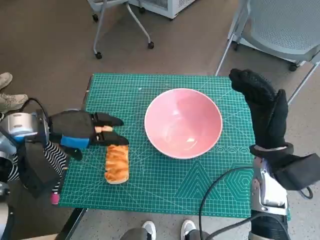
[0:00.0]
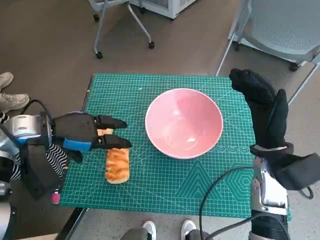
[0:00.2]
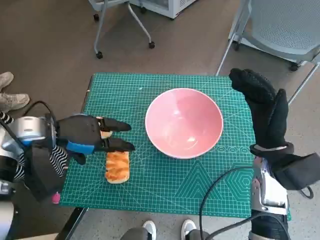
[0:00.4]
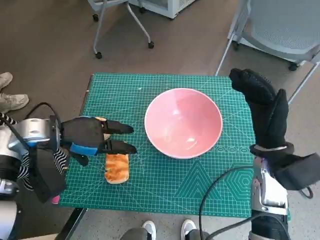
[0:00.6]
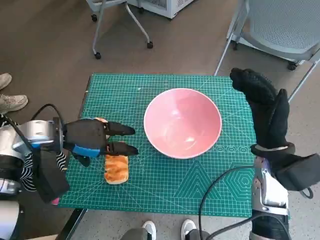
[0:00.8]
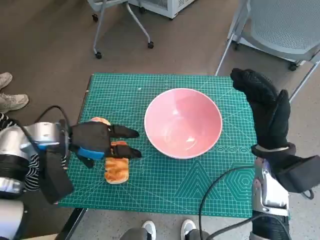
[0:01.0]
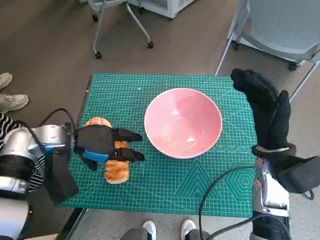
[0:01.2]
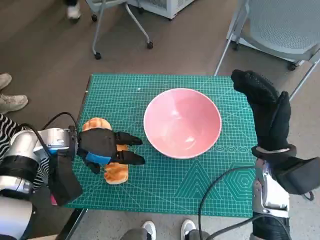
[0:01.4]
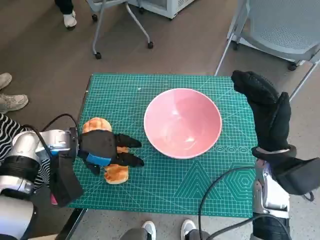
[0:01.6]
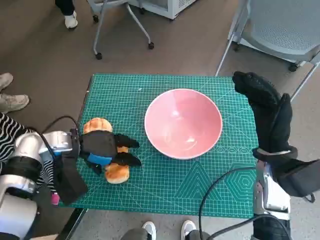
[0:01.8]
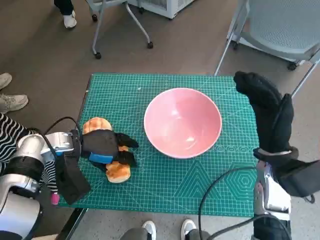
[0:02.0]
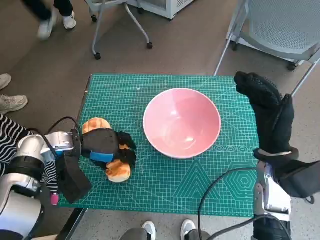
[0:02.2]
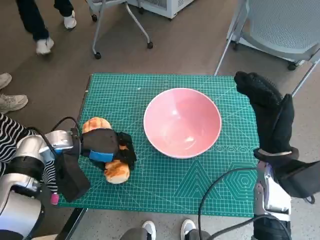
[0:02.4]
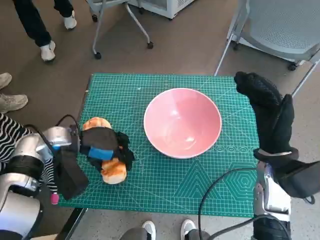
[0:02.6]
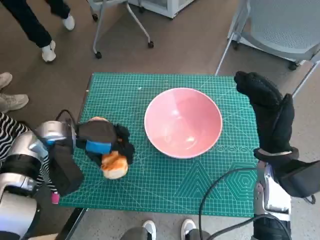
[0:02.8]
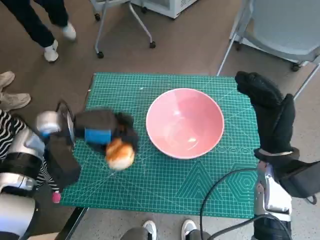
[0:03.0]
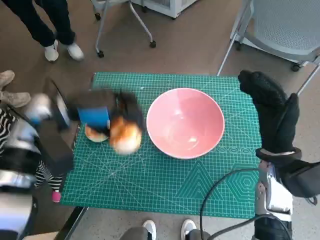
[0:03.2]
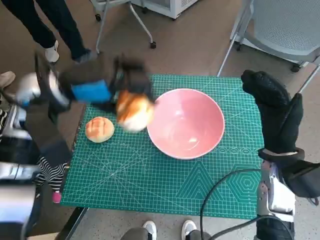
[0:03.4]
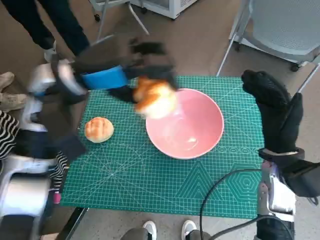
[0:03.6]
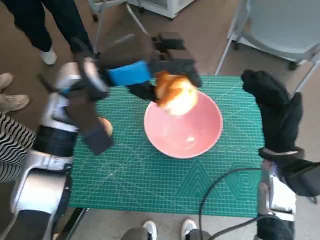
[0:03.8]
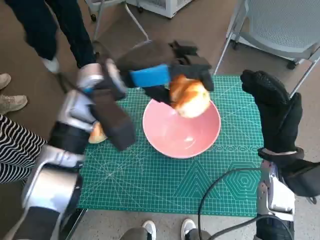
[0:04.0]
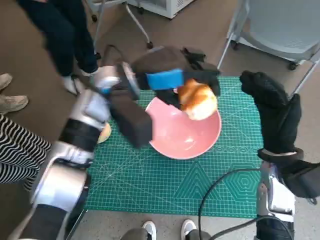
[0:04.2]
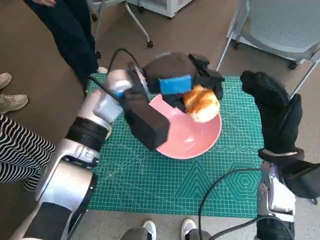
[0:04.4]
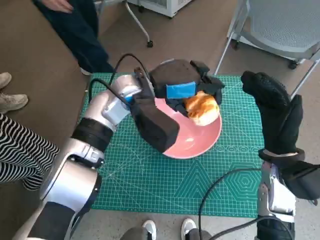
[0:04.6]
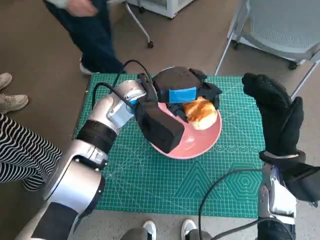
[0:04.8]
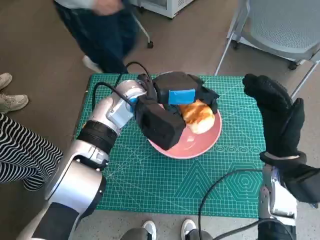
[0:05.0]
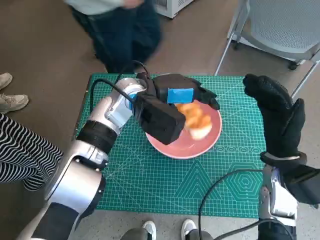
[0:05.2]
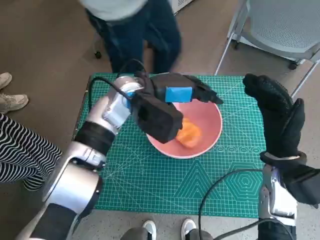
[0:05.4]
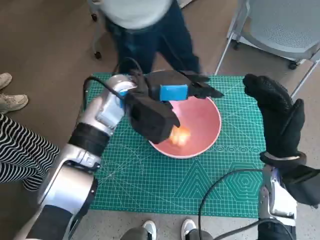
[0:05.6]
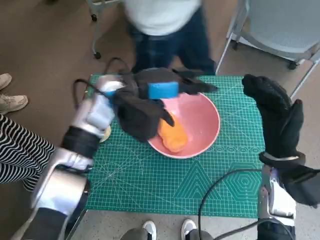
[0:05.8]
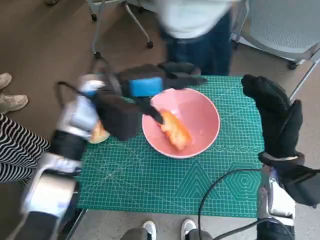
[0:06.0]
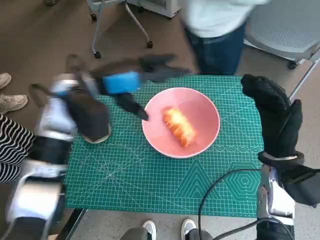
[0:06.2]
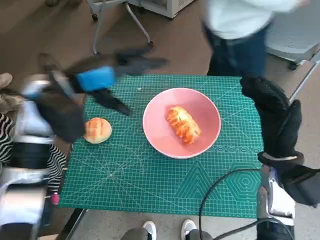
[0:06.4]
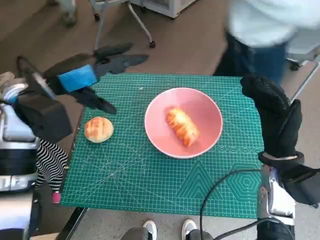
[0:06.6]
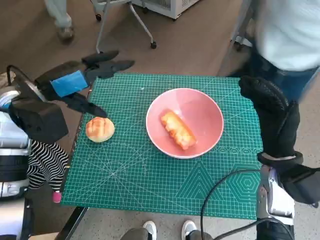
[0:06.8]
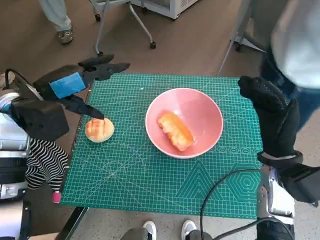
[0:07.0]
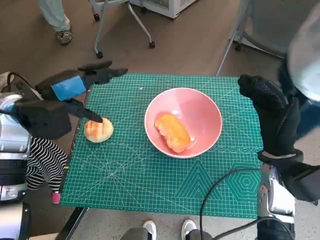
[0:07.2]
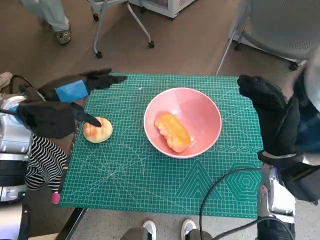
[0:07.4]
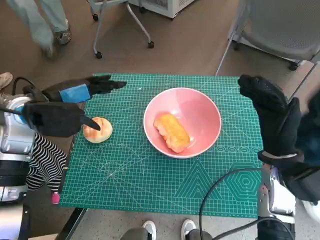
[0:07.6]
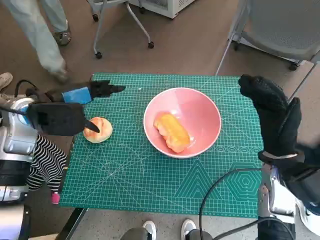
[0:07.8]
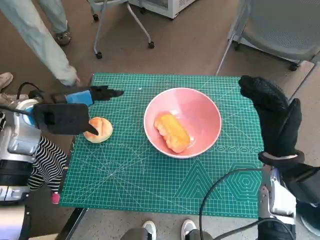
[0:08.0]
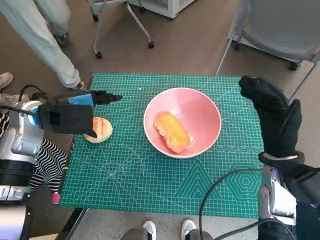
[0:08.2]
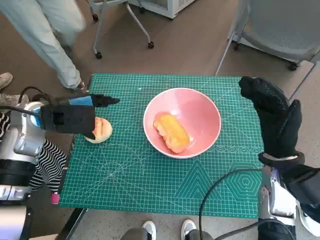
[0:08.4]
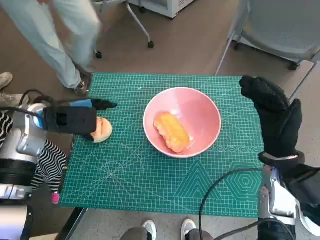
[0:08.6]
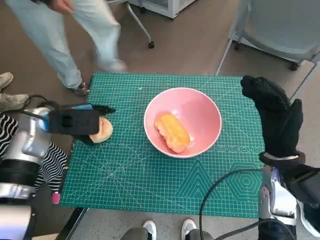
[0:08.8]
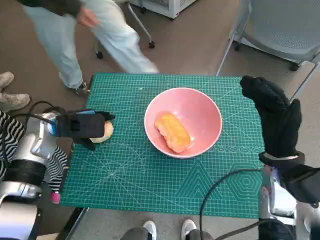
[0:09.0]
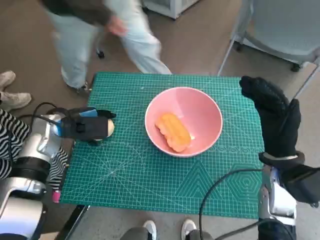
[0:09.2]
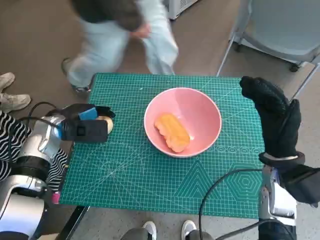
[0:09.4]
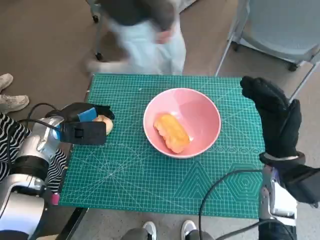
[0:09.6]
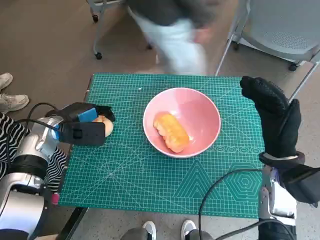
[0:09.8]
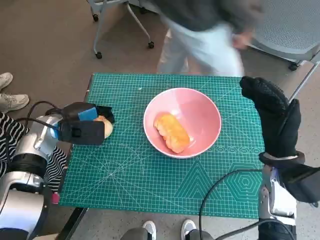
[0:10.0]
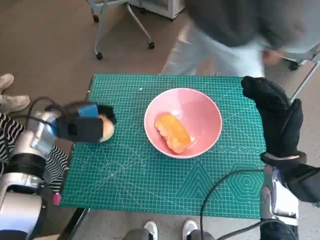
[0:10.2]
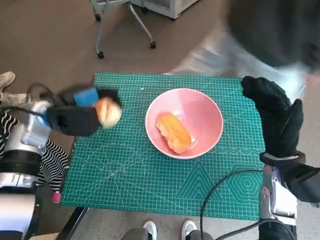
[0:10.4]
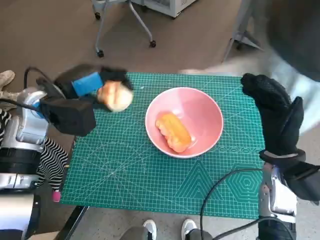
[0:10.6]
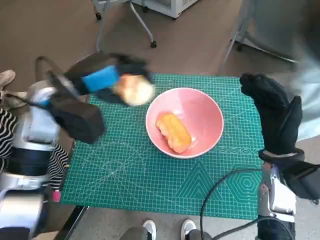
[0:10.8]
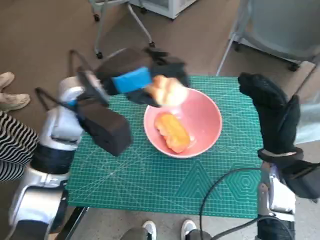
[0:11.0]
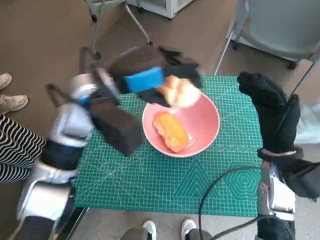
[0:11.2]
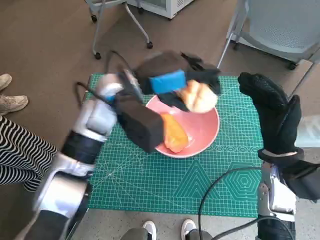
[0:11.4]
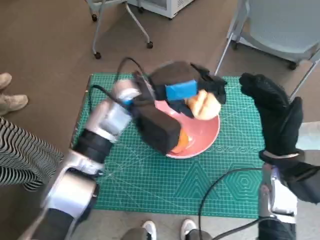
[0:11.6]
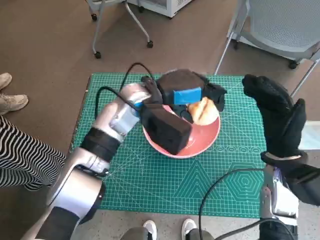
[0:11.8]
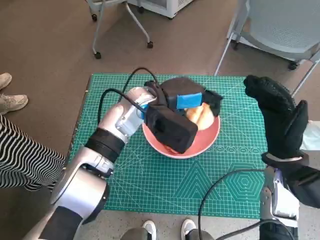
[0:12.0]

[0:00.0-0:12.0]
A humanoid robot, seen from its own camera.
Task of the whole recording: Push the bowl into the center of the table and put the bread into the bowl.
Step, 0:00.0 to 0:02.4: Grasp the long bread with left hand.
Step, 0:02.6 to 0:05.4: Place the long bread in pink bowl with left hand.
Step, 0:05.6 to 0:09.6: Grasp the round bread with left hand.
0:00.0 to 0:01.6: The left hand is displaced downward by about 5 cm.
0:03.0 to 0:04.4: The left hand is displaced to the right and upward by some 15 cm.
0:06.0 to 0:07.6: The left hand shifts roughly 10 cm to the left.
0:07.6 to 0:09.0: The left hand travels downward by some 5 cm.
0:10.4 to 0:12.0: The left hand shifts roughly 20 cm to the right.

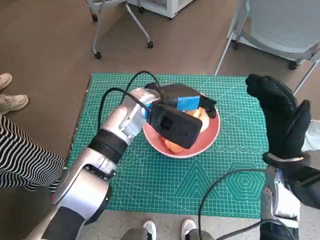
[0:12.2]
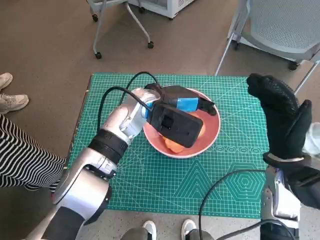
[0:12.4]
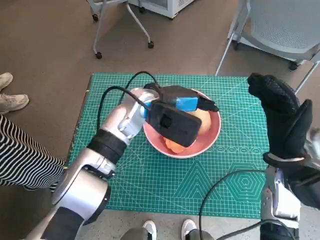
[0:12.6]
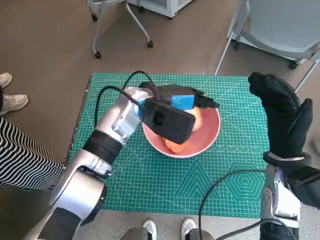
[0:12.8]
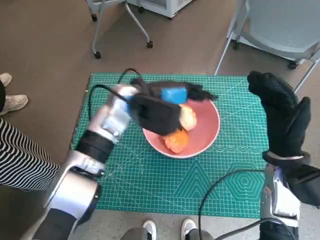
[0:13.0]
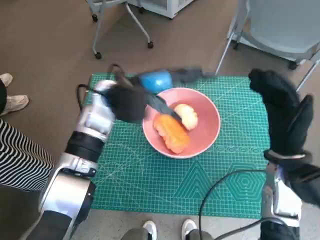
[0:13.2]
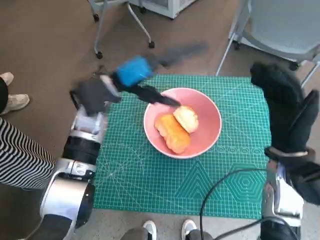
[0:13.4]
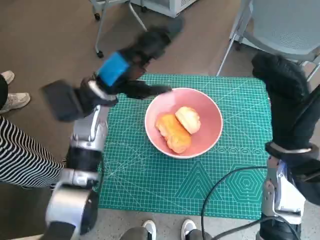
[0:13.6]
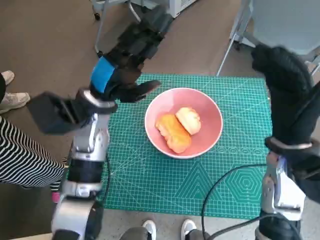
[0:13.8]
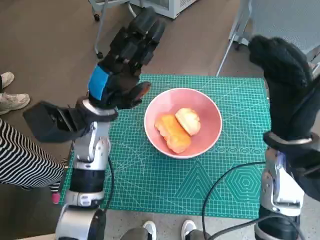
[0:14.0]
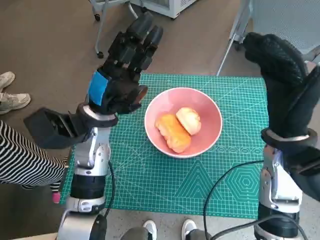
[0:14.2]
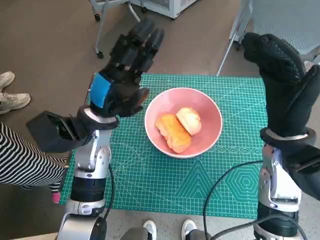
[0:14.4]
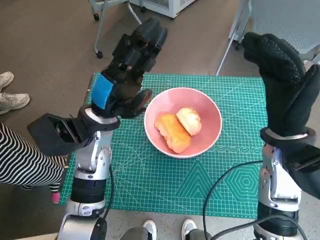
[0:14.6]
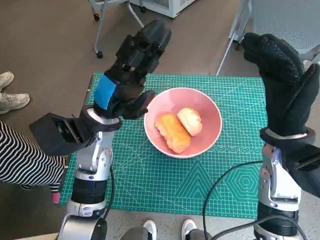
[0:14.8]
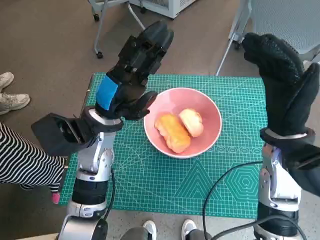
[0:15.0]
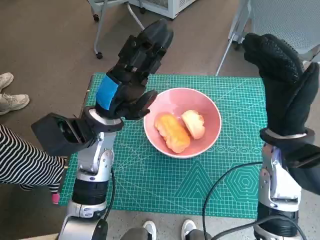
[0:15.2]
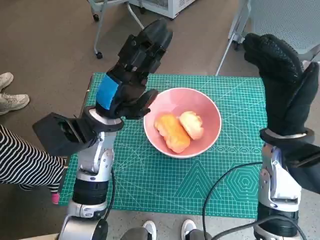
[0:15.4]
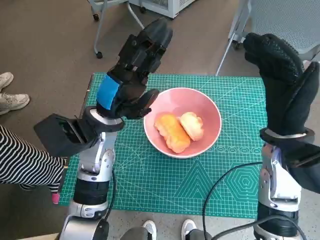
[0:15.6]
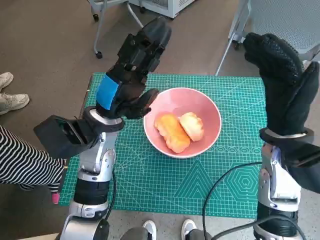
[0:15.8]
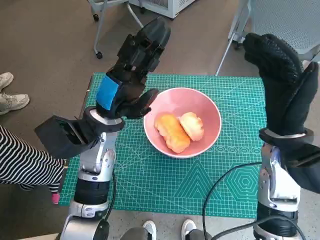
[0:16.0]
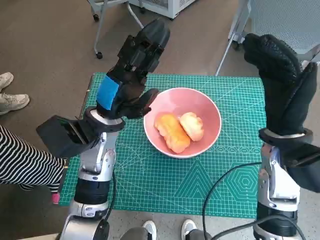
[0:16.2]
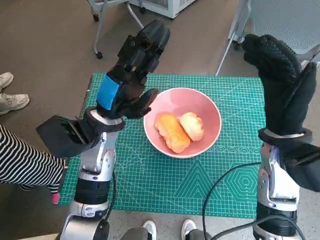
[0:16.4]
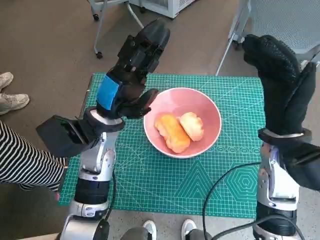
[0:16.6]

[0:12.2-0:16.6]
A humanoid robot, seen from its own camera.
Task of the whole recording: Push the bowl into the center of the table and put the bread into the bowl.
0:12.2 to 0:13.6: The left hand heads to the left, covering approximately 10 cm.
0:13.6 to 0:15.2: The left hand shifts by roughly 5 cm.
0:15.2 to 0:16.6: Both hands stay put.
